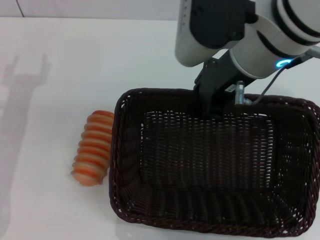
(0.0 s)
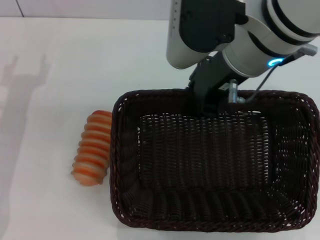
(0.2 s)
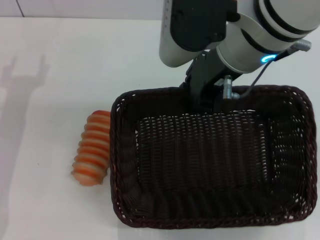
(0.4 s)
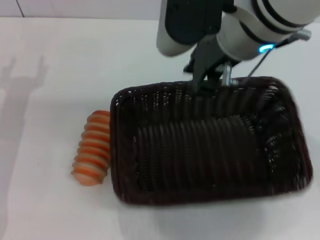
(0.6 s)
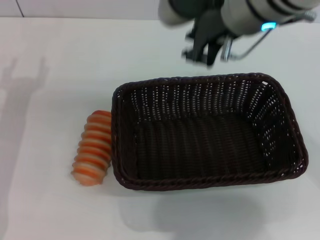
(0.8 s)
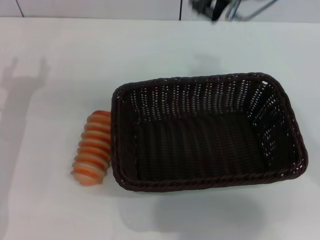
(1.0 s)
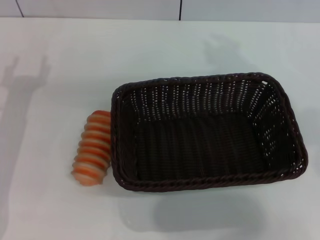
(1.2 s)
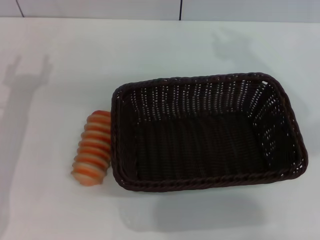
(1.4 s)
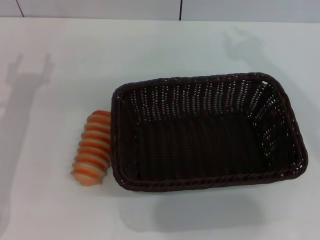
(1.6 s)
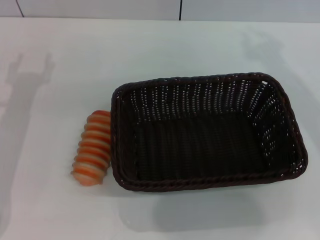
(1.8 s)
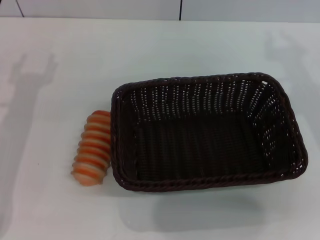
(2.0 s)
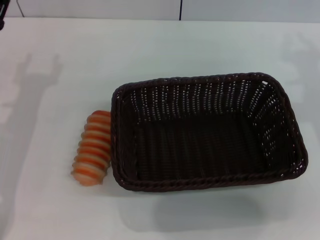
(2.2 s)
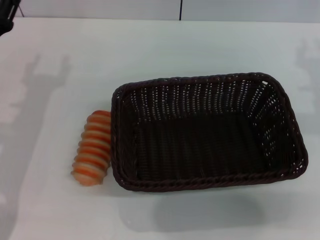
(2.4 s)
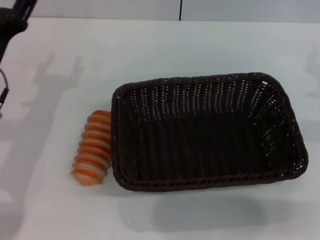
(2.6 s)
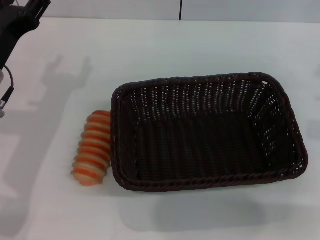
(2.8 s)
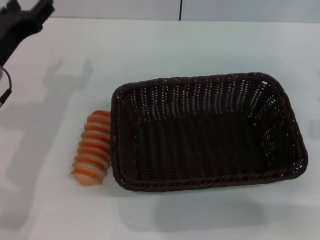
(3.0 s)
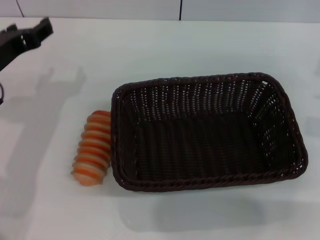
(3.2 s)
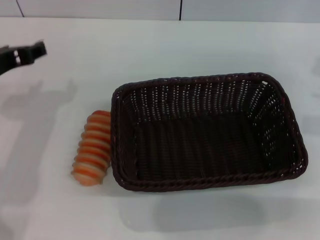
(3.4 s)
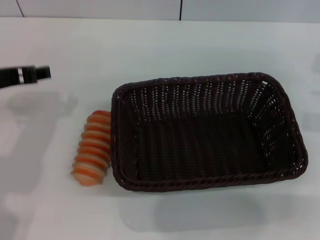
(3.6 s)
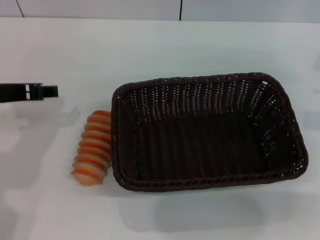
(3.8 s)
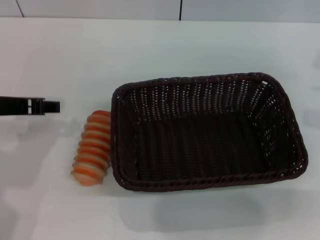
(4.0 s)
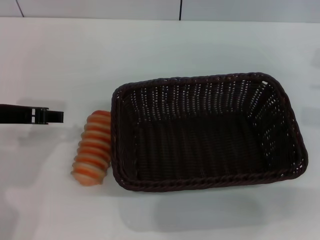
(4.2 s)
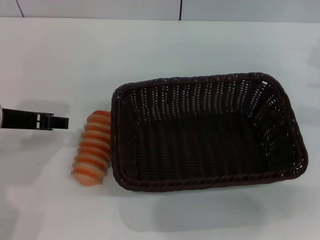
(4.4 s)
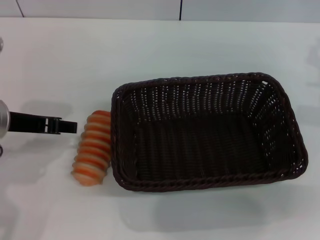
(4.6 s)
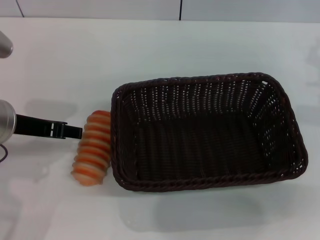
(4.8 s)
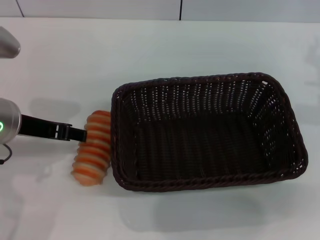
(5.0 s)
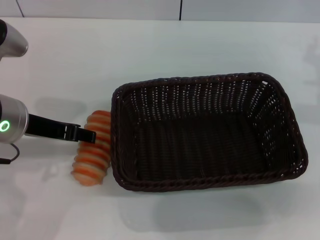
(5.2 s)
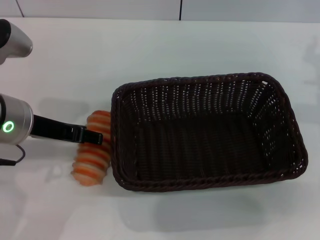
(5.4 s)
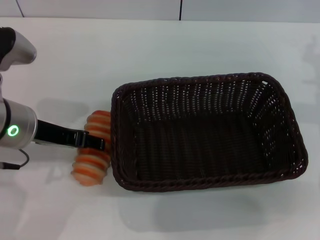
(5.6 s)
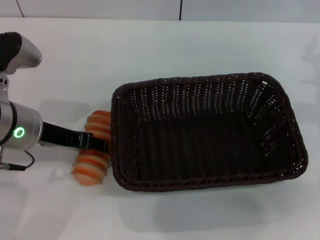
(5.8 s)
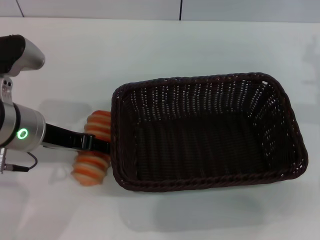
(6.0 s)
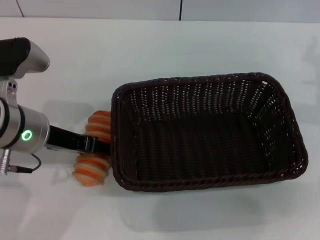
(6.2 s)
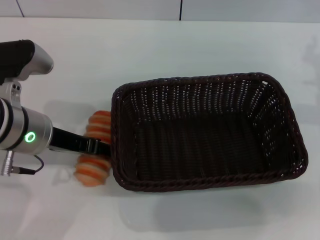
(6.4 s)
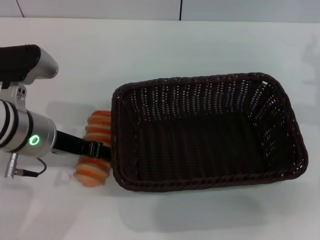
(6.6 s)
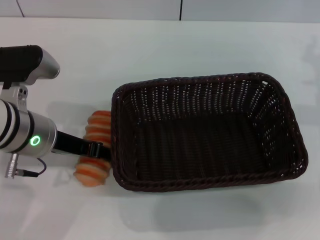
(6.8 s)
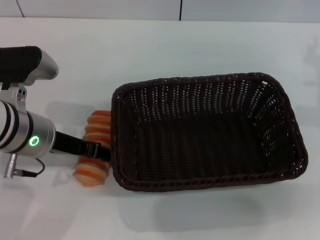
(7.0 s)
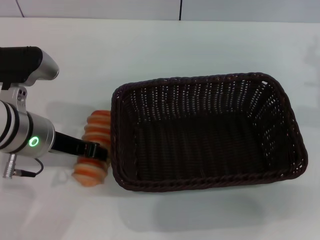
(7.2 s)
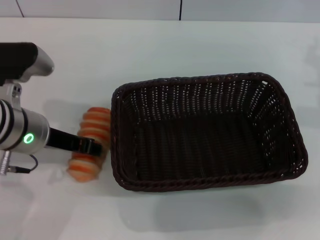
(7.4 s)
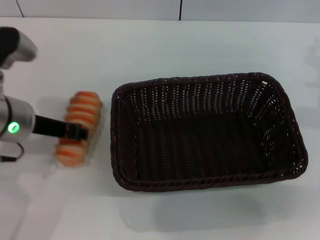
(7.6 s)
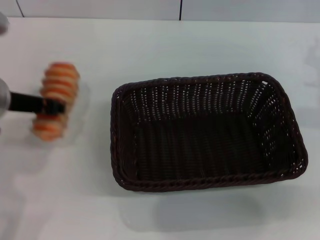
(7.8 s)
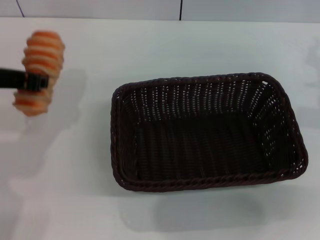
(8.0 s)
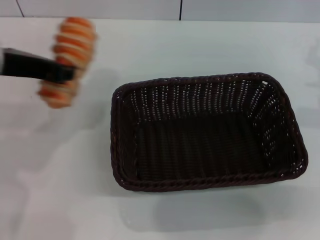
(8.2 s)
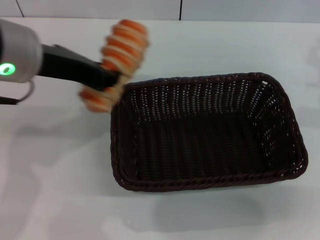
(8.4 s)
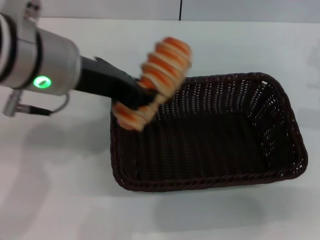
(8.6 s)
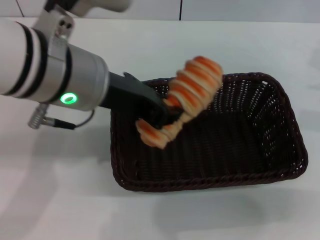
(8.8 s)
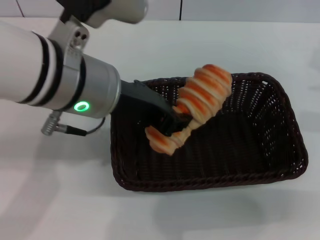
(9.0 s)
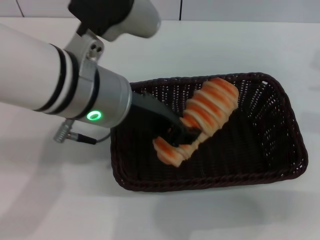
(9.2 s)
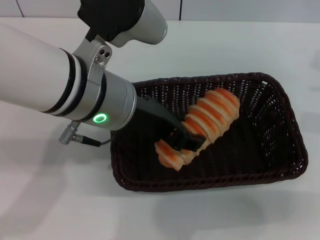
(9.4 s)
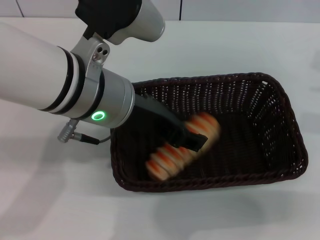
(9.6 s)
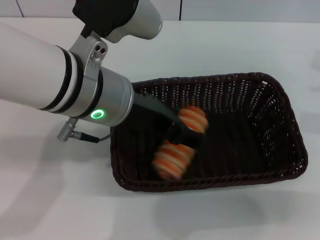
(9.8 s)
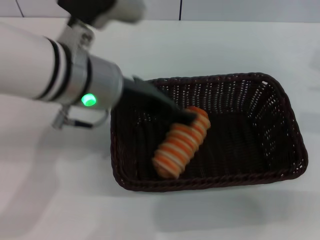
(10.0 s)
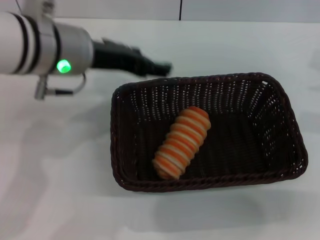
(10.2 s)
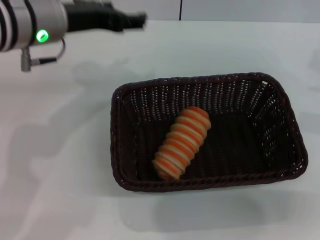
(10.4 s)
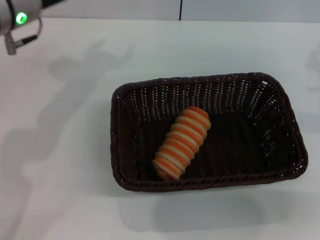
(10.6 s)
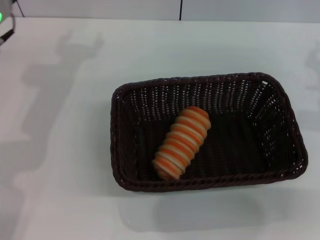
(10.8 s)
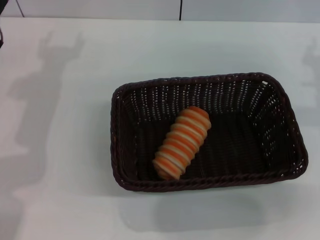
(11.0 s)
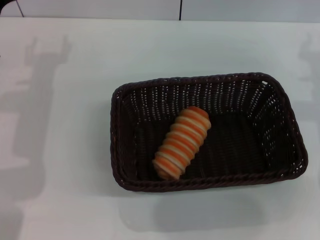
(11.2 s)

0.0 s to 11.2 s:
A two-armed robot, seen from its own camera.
Step, 0.8 to 7.8 s: Pick up the long bread with the left gripper.
Step, 8.0 to 9.8 s: Place the long bread into the dark basket with the left gripper.
0.0 to 1.6 s: The right gripper is displaced to the right by roughly 10 cm.
1.6 to 3.2 s: The right gripper moves downward and to the right, some 20 cm; the left gripper moves upward, approximately 5 cm.
4.8 to 6.4 s: The grippers move only a little.
6.4 to 8.0 s: The left gripper moves upward, about 10 cm, and closes its fingers.
8.0 to 9.6 s: The left gripper heads to the right, covering approximately 15 cm, and opens its fingers.
9.6 to 11.2 s: The left gripper goes some 20 cm to the left, downward and forward, and opens its fingers.
